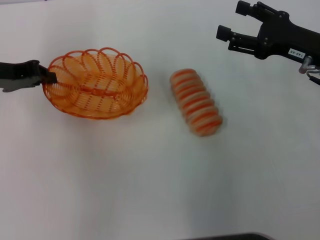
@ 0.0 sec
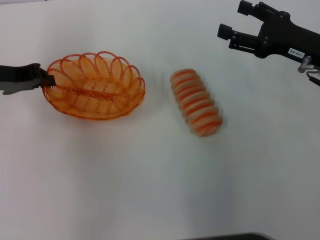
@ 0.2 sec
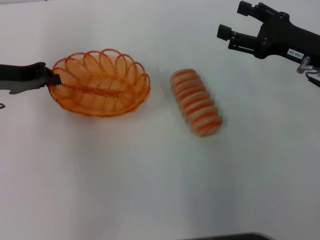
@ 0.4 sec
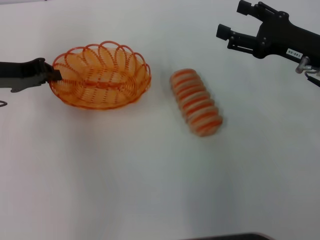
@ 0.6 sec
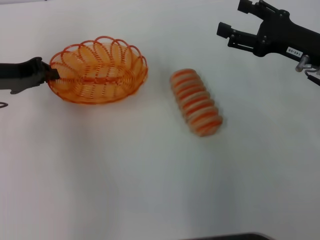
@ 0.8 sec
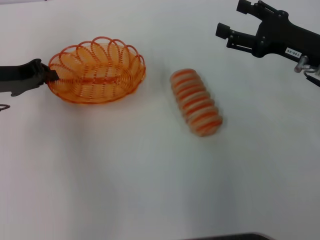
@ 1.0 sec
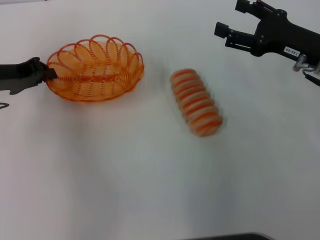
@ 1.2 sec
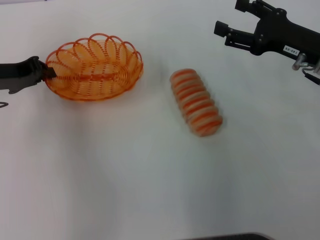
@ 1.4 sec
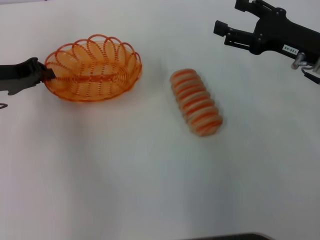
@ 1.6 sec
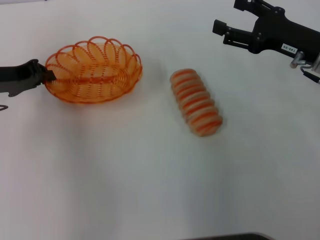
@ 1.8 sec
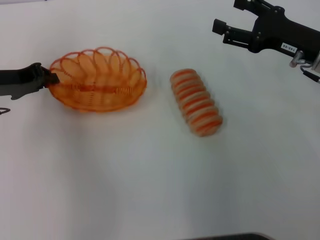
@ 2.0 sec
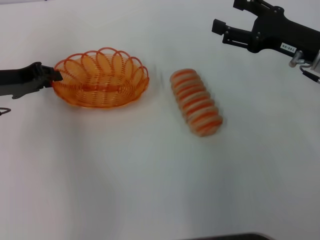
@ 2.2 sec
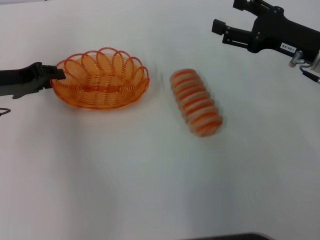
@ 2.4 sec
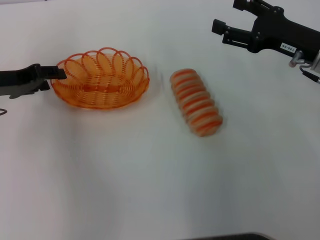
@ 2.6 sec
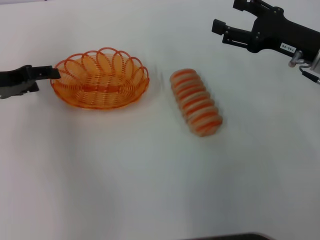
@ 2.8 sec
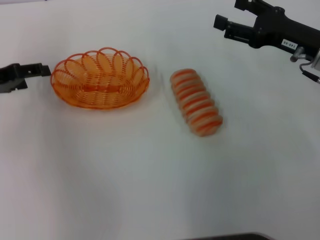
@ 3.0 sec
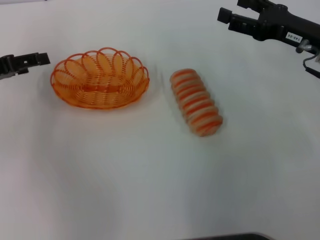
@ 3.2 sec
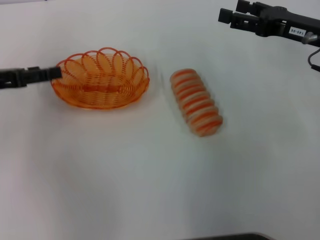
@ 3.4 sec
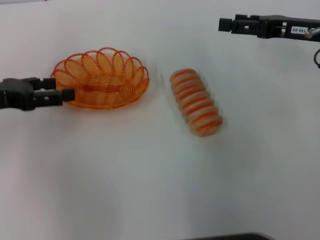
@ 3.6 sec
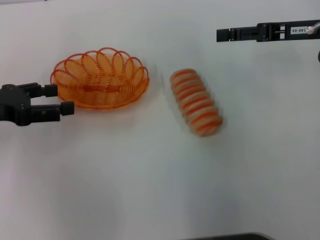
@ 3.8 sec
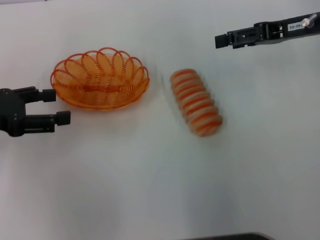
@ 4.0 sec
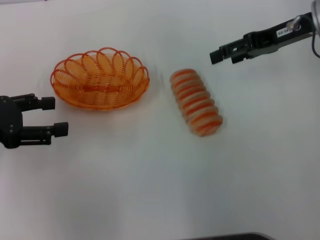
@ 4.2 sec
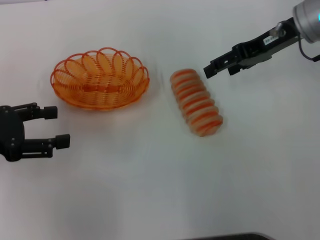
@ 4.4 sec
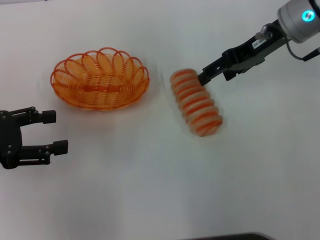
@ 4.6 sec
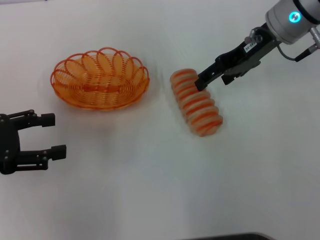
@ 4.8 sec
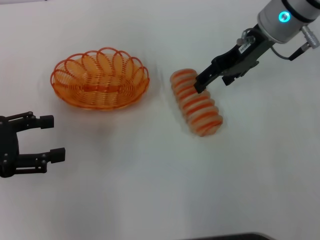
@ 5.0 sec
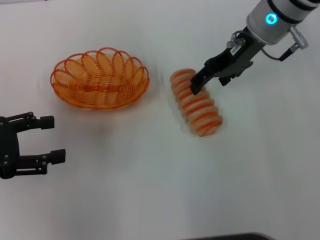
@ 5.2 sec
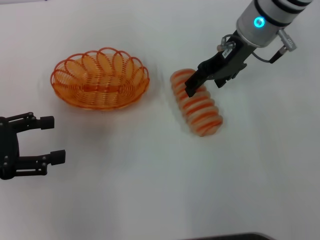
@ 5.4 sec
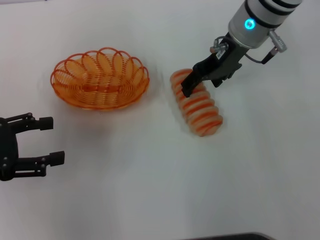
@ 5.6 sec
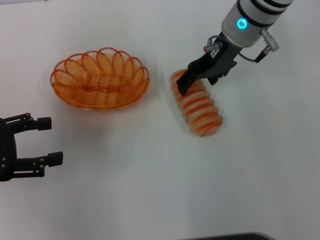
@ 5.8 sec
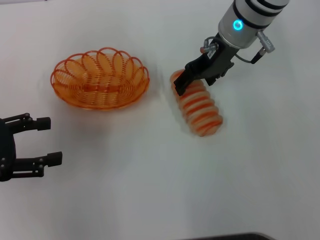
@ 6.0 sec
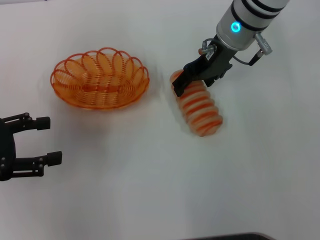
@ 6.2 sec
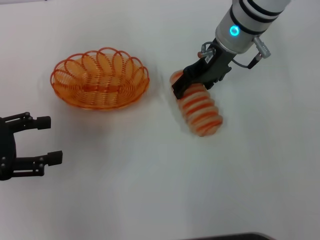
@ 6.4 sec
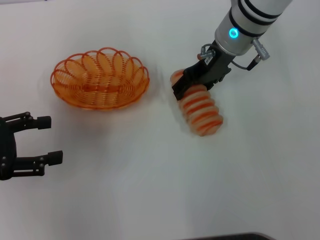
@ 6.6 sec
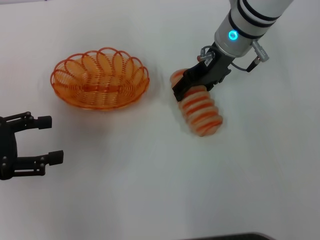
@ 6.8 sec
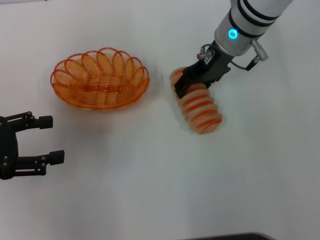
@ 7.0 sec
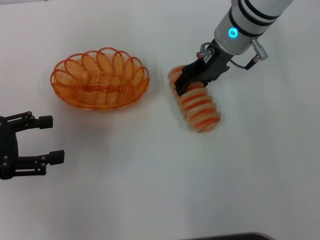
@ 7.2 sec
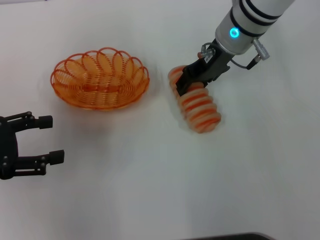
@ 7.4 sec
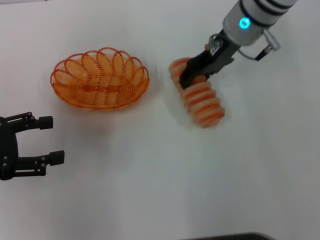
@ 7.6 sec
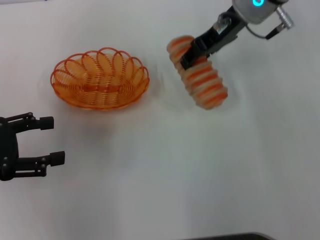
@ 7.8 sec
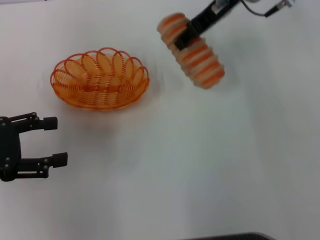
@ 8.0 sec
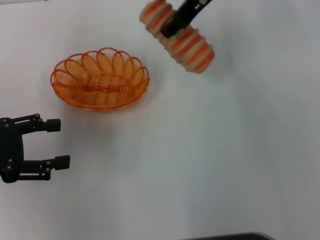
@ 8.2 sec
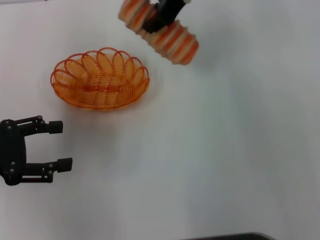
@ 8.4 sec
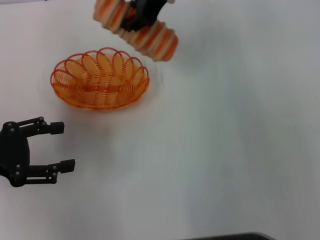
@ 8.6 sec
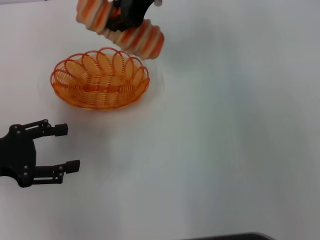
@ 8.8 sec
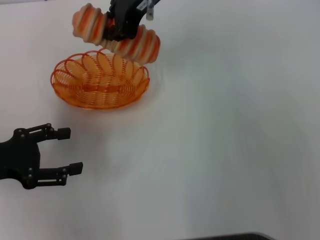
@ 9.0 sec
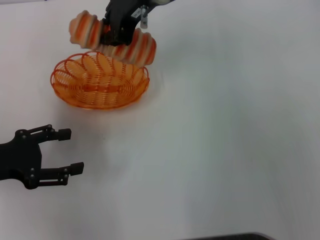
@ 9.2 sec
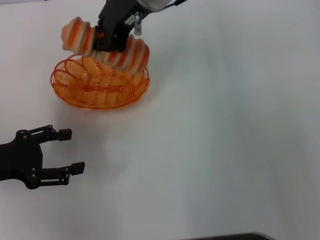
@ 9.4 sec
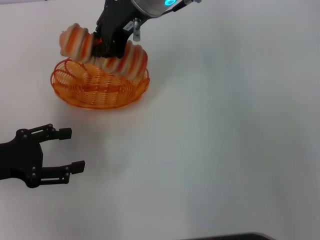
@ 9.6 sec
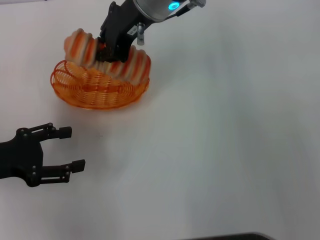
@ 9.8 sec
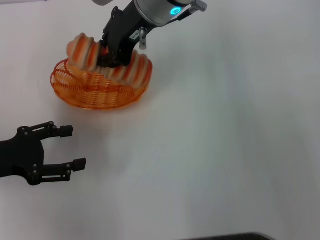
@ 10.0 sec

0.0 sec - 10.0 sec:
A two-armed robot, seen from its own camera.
Step, 0.0 sec - 3.2 sec: Place the basket in the center of view with the left gripper.
Step, 3.4 sec - 8.2 sec: Pick up the long bread with the right gripper.
0.0 sec - 1.4 sec: The grippers move only a little.
1.4 sec - 2.8 sec: The left gripper opens up.
2.8 sec - 4.2 sec: The right gripper moves upward and forward, approximately 10 cm, while the left gripper is displaced backward by approximately 5 cm.
4.2 sec - 5.8 sec: The right gripper moves to the left, roughly 15 cm.
5.8 sec - 7.2 sec: The grippers move only a little.
7.2 sec - 8.6 sec: The right gripper goes some 10 cm upward and to the left, and closes its fingers.
8.6 sec - 10.0 sec: The right gripper shifts by approximately 5 cm.

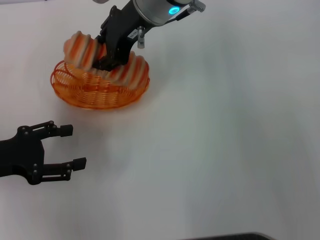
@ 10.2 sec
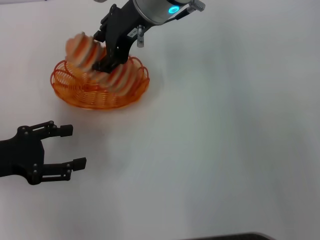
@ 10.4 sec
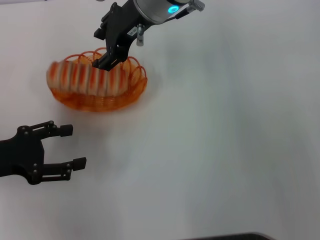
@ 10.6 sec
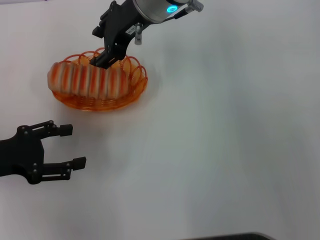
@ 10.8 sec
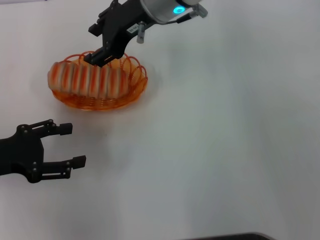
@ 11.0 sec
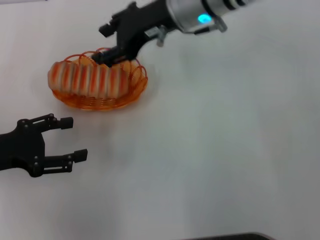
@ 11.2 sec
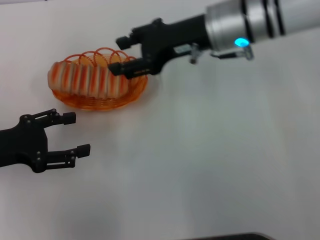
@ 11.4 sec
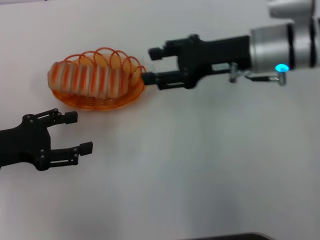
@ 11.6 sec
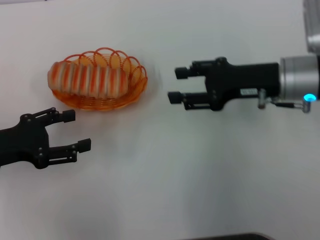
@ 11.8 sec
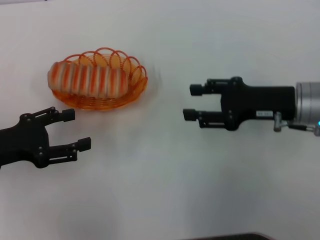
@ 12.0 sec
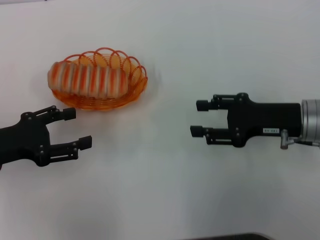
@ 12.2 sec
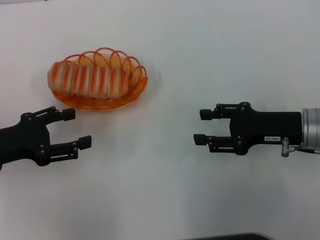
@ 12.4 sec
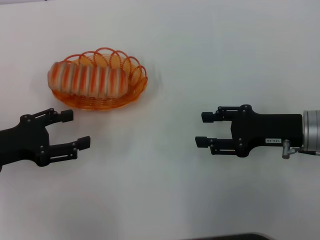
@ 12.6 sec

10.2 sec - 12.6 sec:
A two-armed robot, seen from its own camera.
10.2 sec - 11.4 sec: The right gripper shifts some 10 cm to the right, and opens up.
11.4 sec - 12.6 sec: The right gripper heads to the right, backward and downward, covering about 20 cm.
